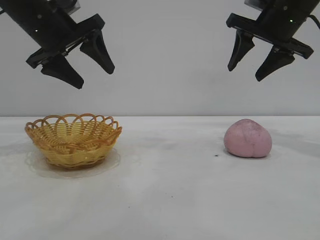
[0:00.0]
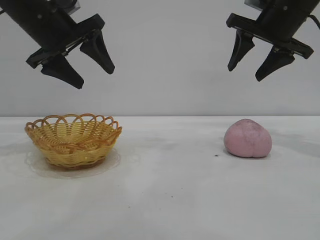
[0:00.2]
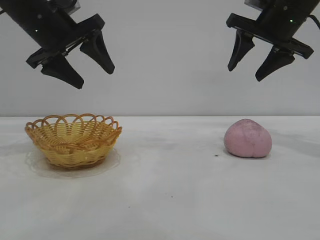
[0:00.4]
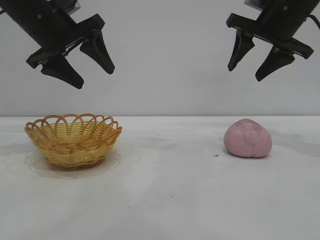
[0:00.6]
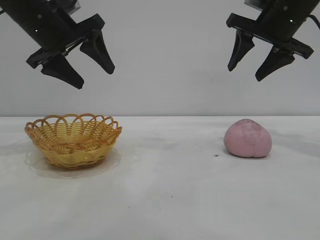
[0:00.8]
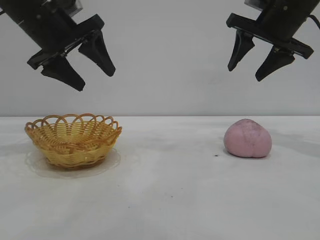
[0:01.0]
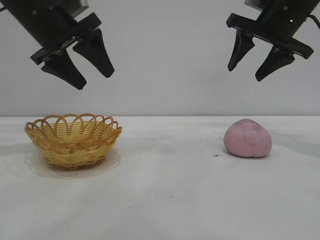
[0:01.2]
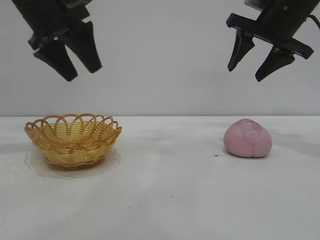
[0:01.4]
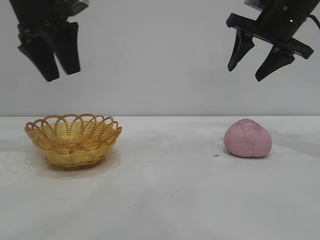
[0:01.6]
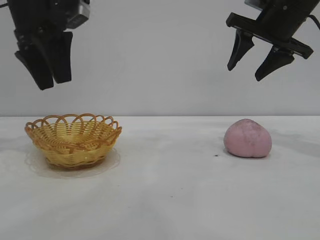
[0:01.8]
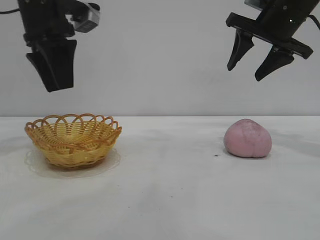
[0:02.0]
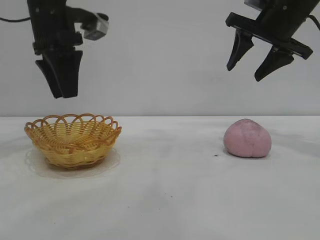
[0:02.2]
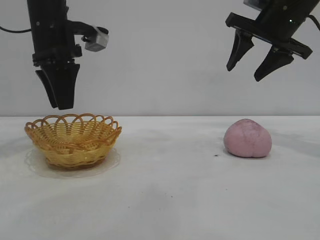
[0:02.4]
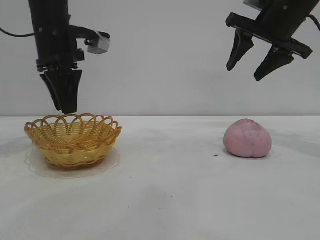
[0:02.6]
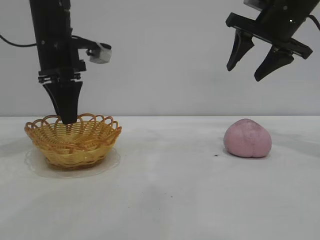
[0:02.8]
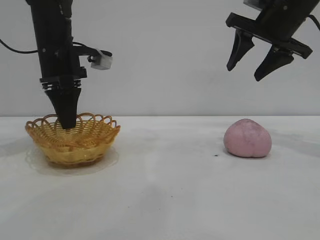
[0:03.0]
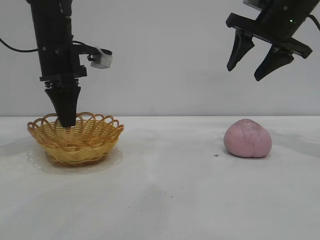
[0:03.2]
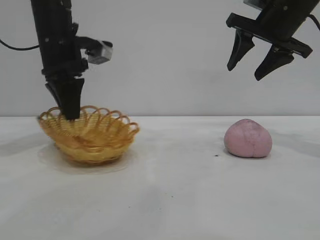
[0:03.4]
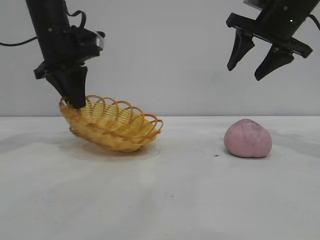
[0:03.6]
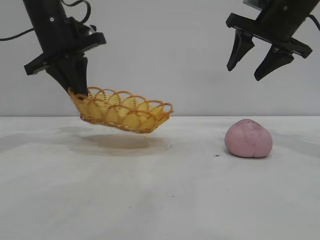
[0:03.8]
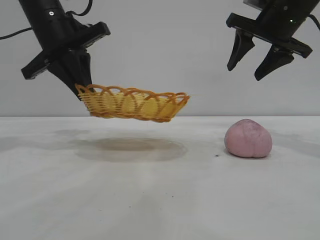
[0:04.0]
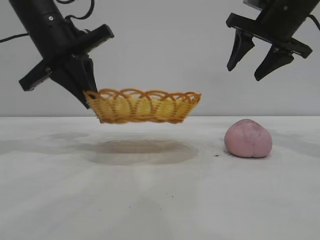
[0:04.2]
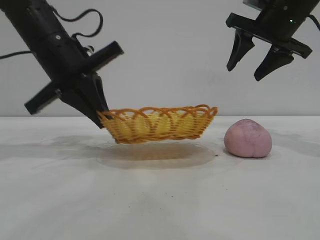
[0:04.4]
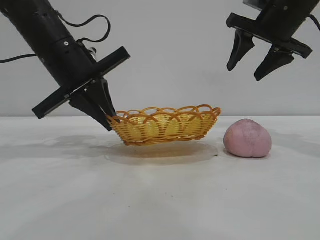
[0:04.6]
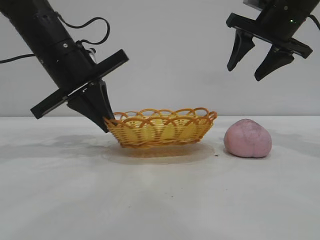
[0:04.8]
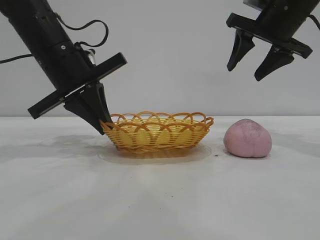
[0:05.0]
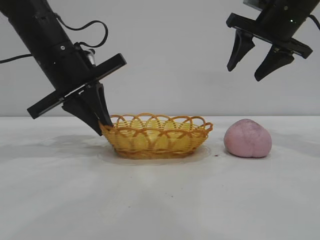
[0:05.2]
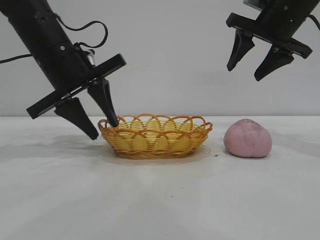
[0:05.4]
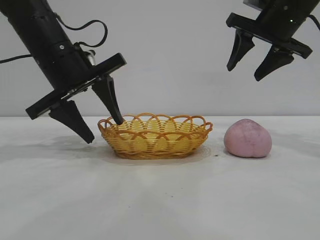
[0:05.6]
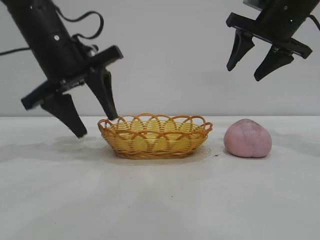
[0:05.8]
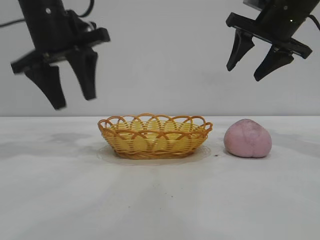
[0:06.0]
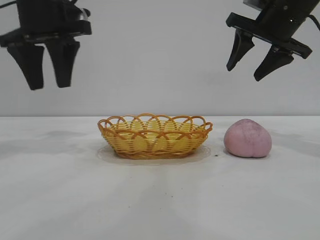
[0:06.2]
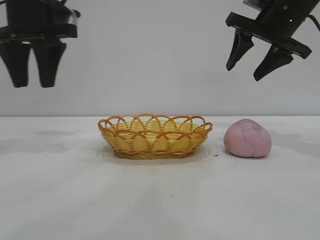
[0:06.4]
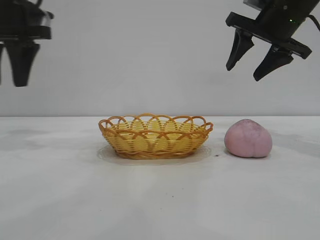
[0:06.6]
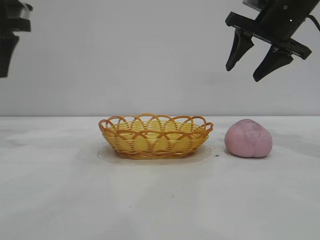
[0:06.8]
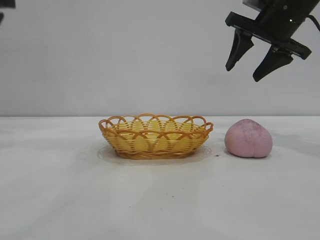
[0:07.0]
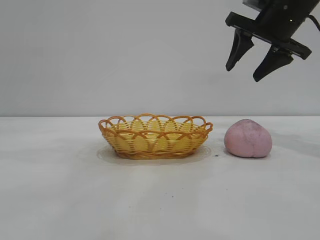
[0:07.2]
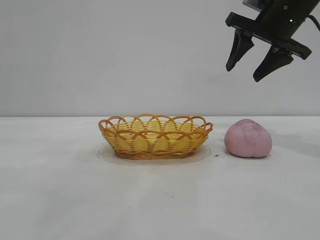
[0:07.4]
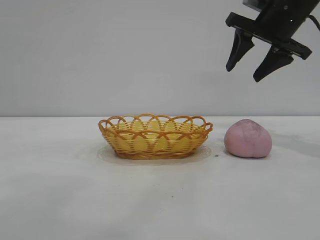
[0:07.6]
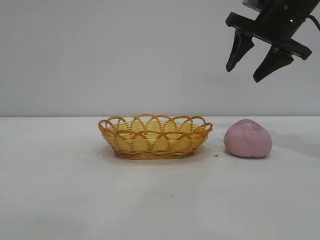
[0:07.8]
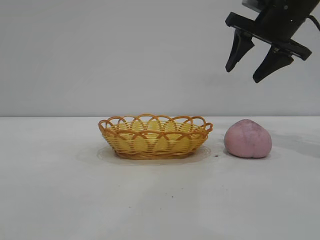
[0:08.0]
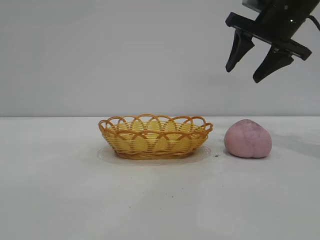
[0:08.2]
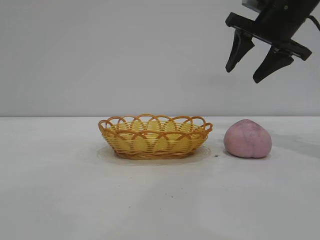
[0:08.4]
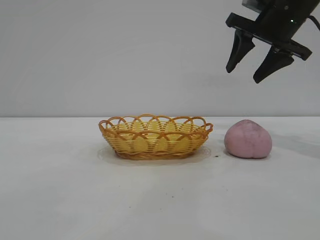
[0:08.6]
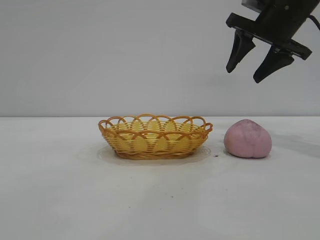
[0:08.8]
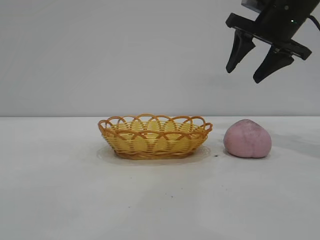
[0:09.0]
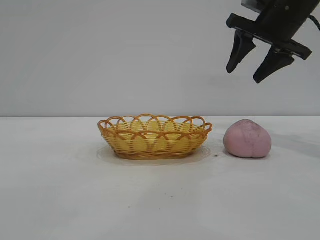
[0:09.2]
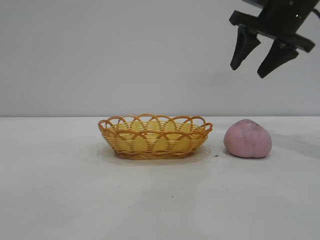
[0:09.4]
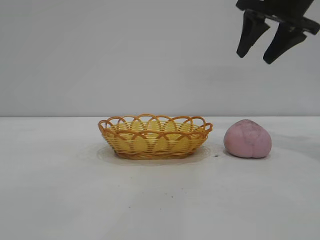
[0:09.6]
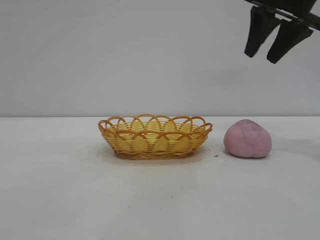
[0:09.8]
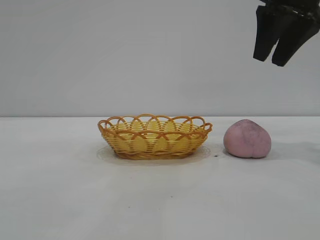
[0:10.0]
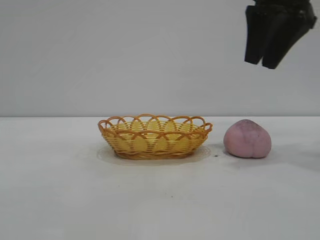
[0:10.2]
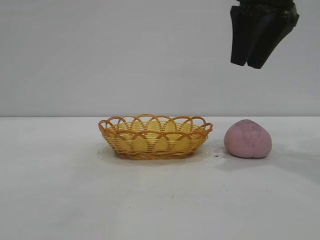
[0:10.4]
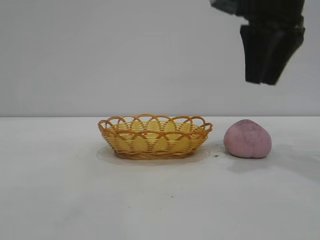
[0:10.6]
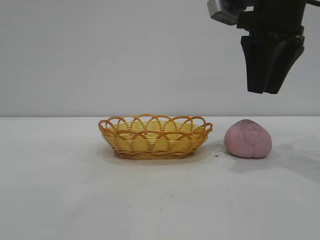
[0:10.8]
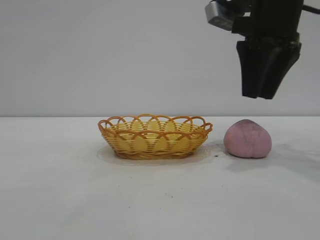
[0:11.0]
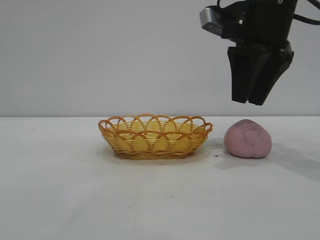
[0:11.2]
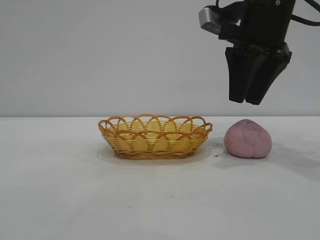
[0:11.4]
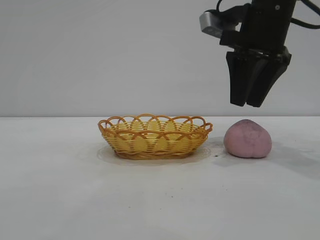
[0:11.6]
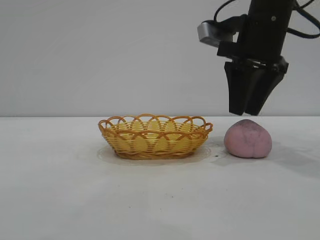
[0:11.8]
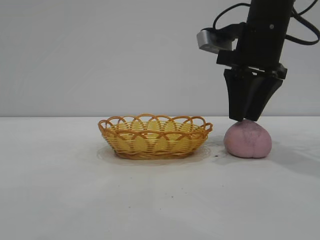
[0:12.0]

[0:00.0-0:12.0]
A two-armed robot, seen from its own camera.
Task of the whole recording: pick up the peach and put it into the basket.
Step, 0:00.0 to 0:05.8: Move the basket to the center of view.

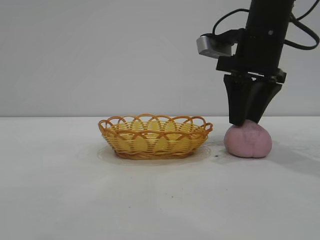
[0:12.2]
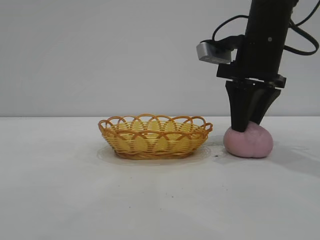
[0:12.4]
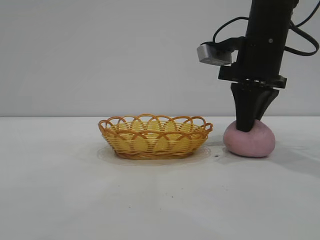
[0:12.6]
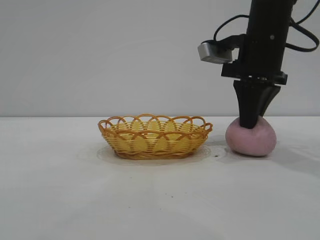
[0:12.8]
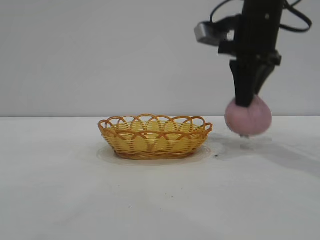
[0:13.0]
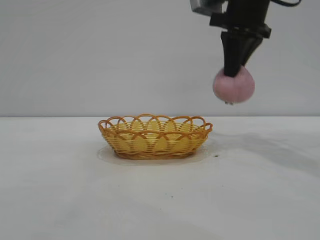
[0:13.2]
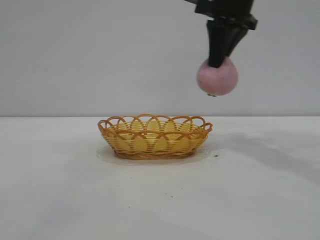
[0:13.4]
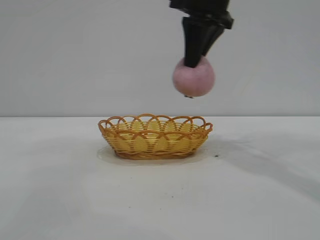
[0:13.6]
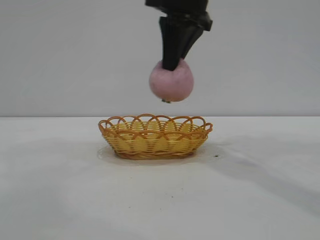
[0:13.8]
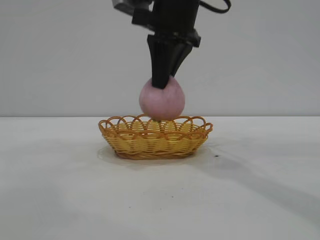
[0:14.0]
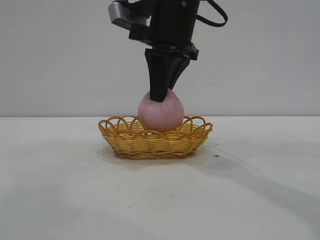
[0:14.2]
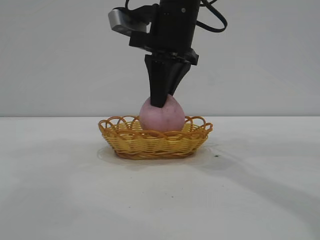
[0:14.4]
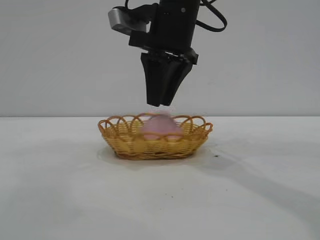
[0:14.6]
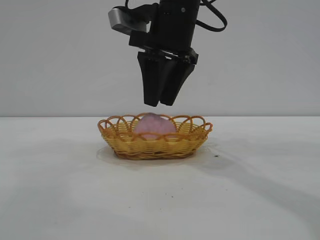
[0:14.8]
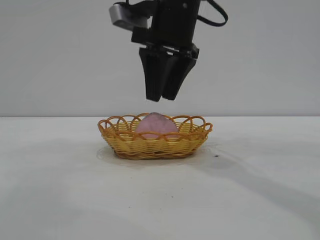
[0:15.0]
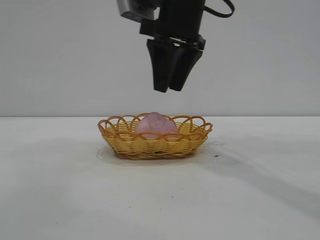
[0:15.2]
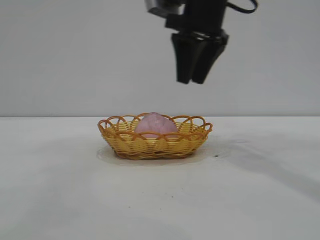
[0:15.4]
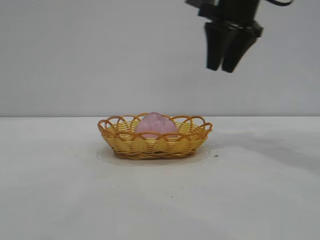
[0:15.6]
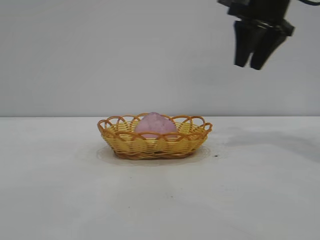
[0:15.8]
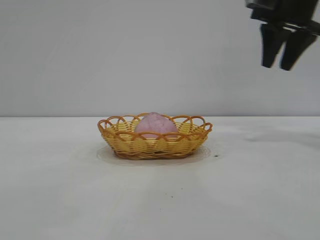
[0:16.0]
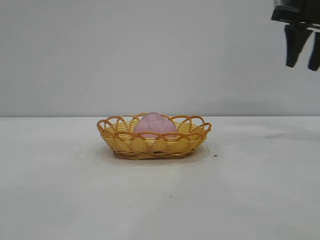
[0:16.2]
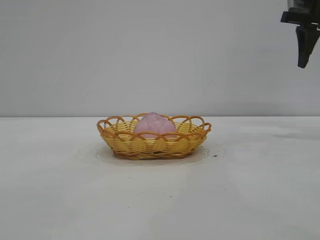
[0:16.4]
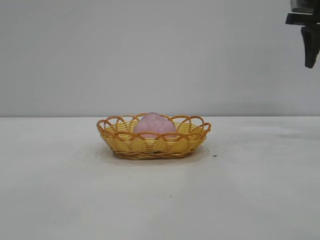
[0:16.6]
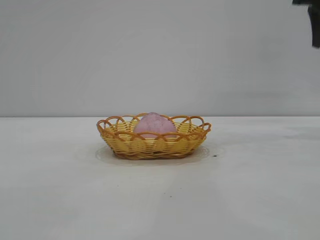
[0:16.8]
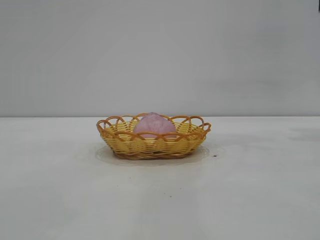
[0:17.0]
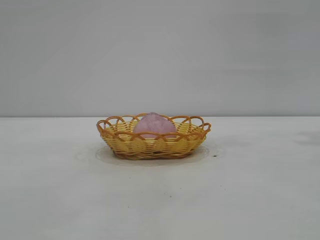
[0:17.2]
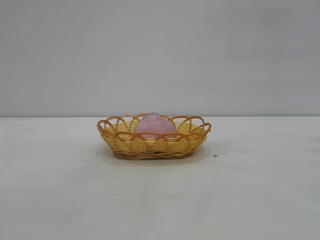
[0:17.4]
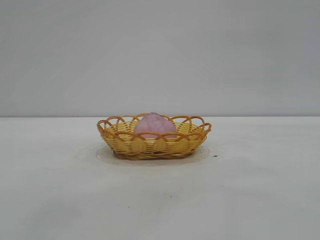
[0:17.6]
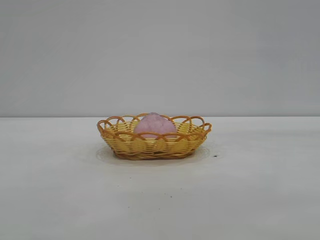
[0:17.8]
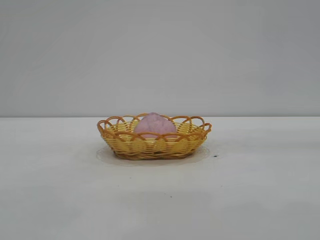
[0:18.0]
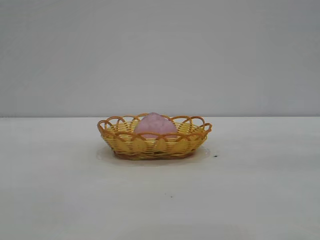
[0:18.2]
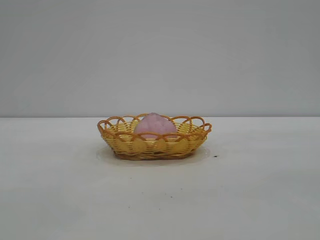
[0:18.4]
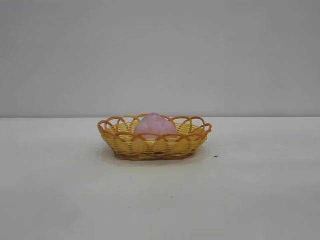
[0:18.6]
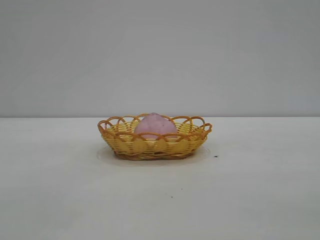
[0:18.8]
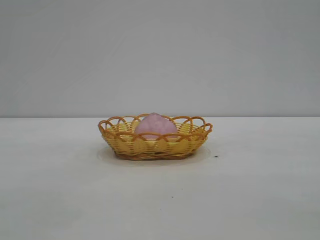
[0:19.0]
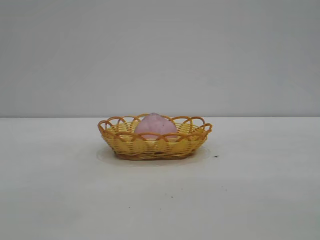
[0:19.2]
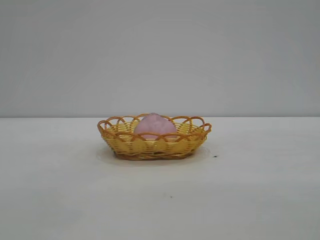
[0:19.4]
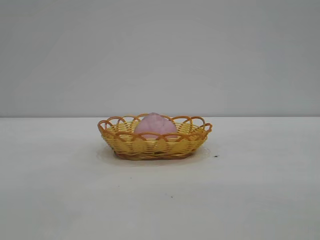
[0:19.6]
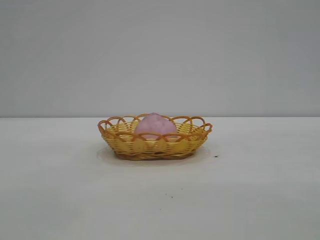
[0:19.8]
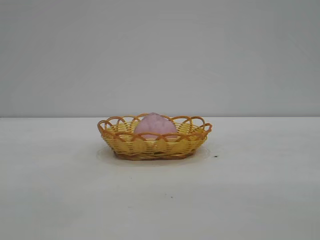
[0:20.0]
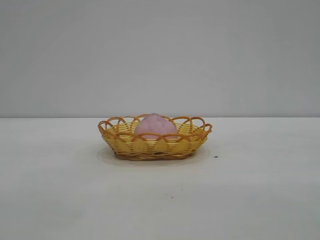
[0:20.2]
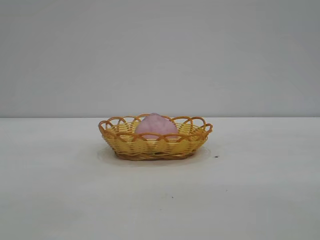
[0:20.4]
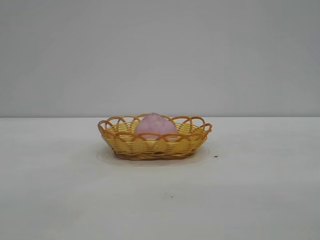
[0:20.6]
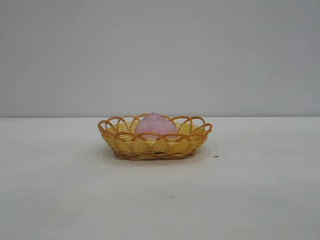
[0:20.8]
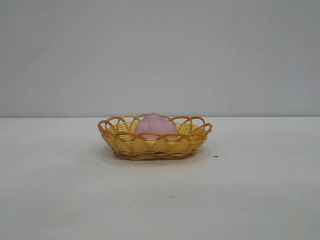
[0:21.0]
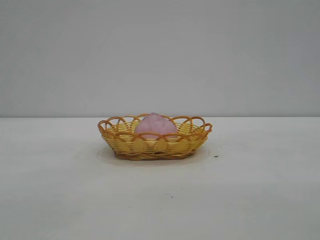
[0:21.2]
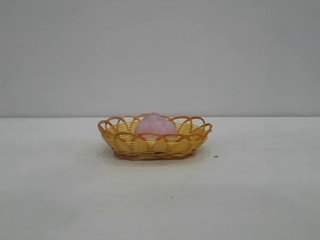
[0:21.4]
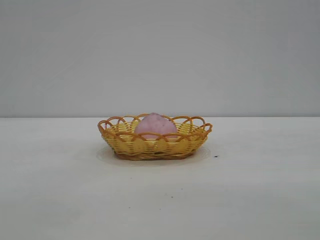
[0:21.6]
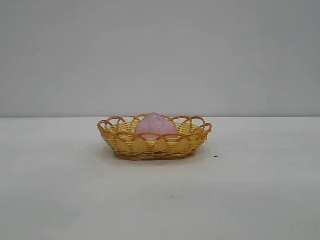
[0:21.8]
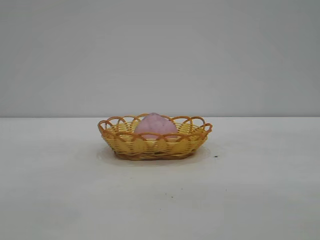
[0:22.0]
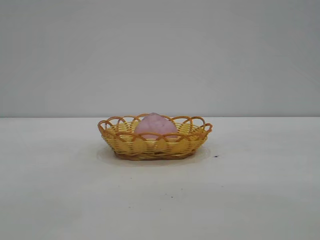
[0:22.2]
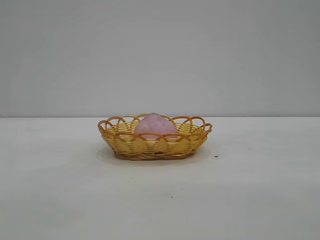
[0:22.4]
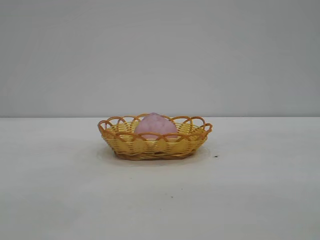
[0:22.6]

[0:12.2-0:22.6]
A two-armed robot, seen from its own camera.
Task of the whole recording: pick up the peach and put it into the basket.
Step, 0:13.2 to 0:15.2: place the peach into the basket.
